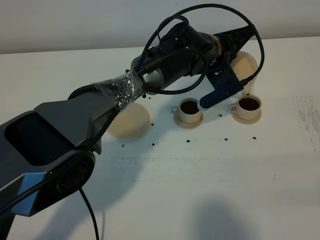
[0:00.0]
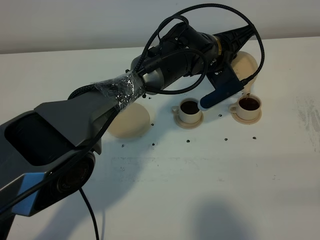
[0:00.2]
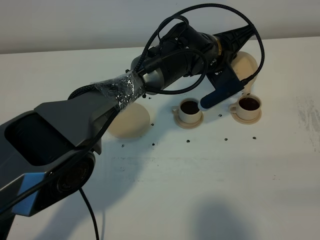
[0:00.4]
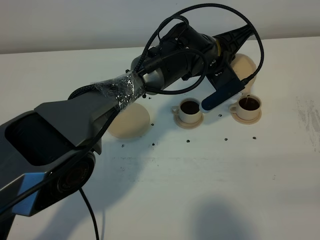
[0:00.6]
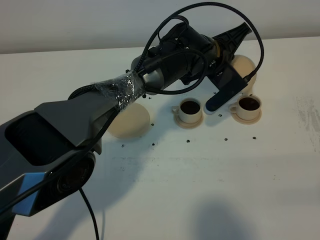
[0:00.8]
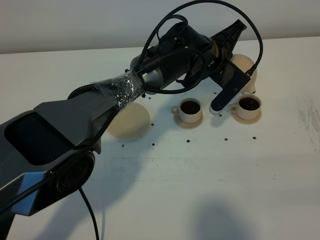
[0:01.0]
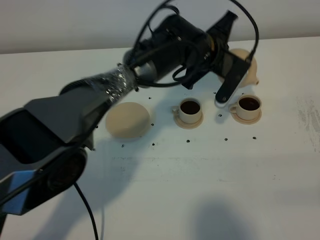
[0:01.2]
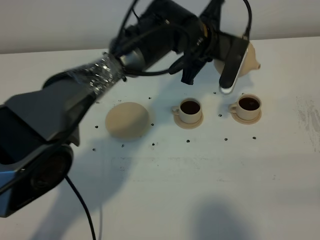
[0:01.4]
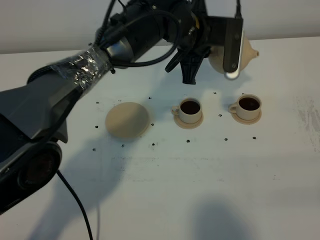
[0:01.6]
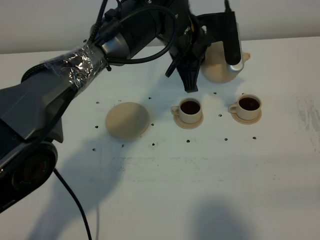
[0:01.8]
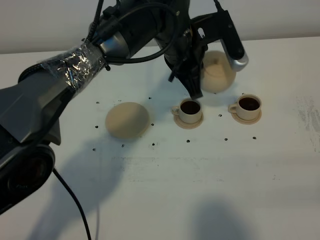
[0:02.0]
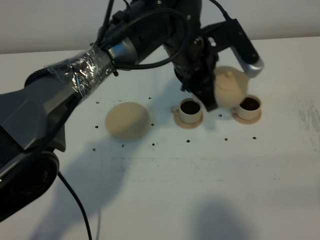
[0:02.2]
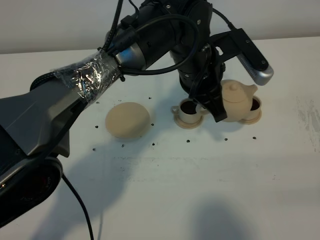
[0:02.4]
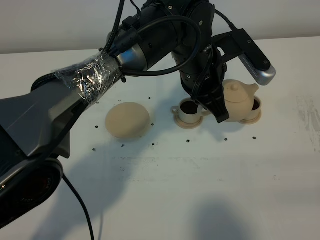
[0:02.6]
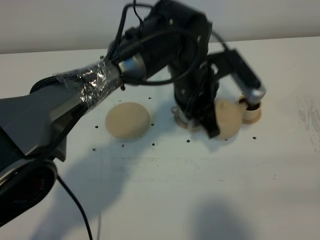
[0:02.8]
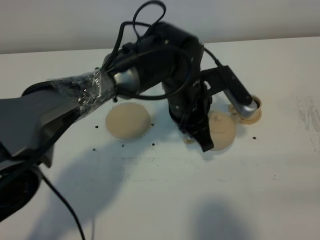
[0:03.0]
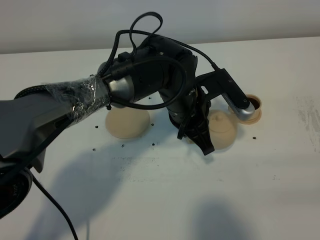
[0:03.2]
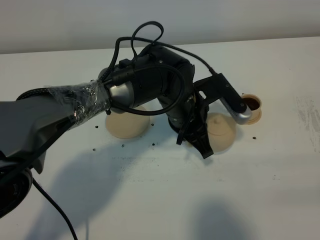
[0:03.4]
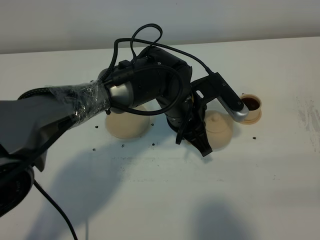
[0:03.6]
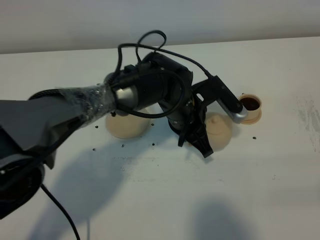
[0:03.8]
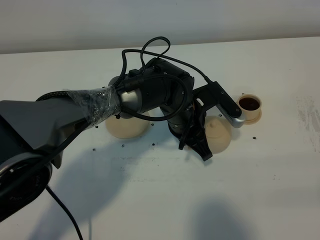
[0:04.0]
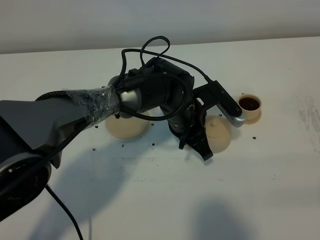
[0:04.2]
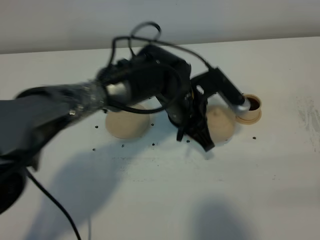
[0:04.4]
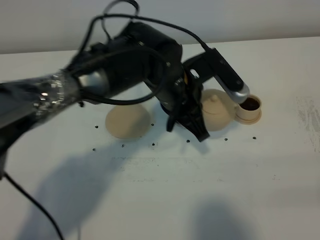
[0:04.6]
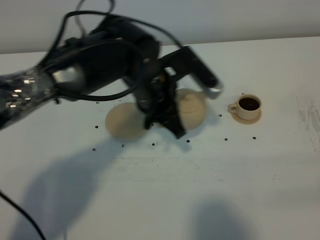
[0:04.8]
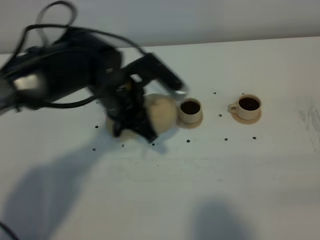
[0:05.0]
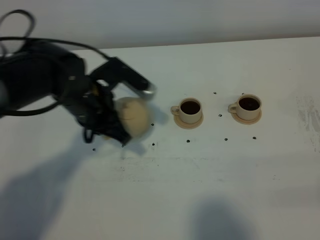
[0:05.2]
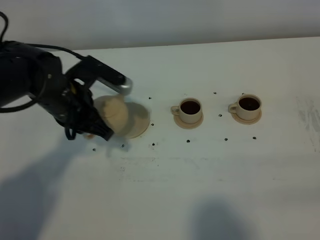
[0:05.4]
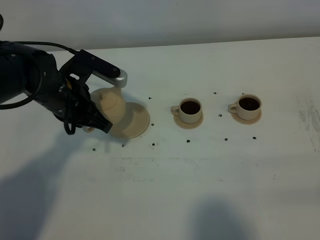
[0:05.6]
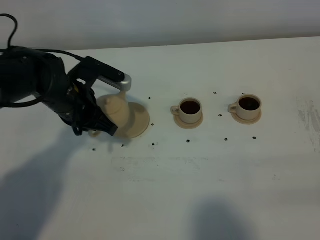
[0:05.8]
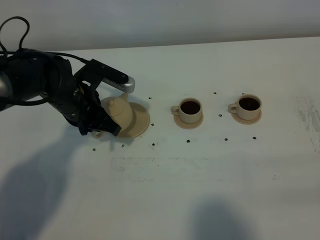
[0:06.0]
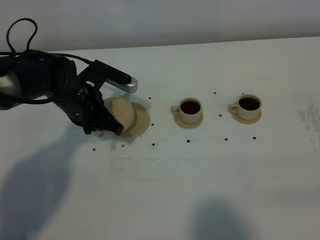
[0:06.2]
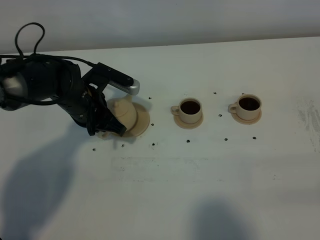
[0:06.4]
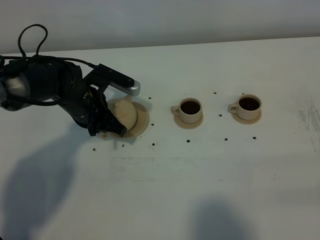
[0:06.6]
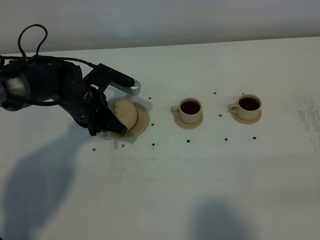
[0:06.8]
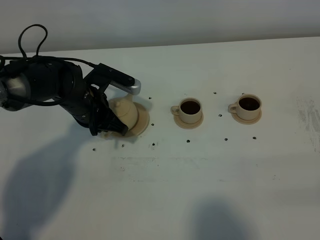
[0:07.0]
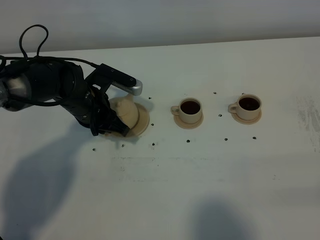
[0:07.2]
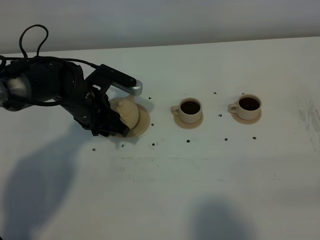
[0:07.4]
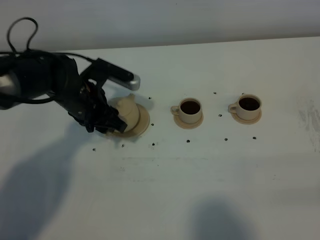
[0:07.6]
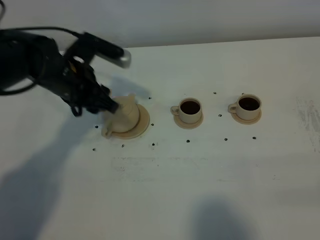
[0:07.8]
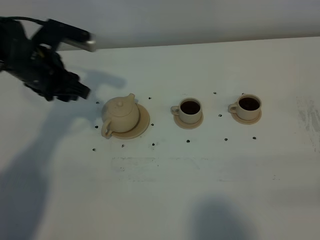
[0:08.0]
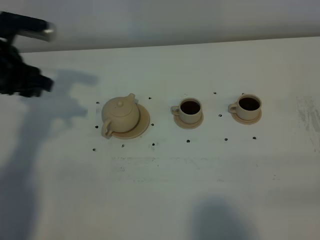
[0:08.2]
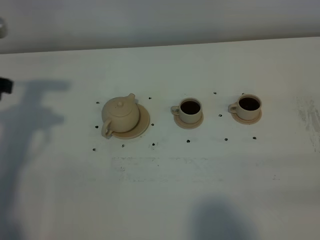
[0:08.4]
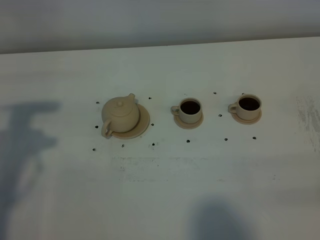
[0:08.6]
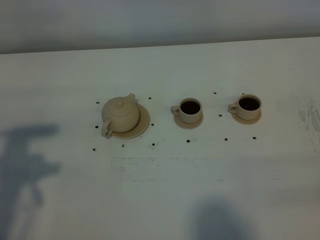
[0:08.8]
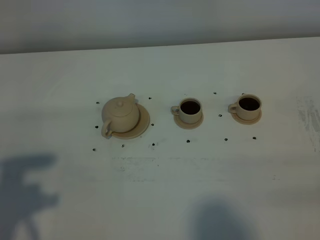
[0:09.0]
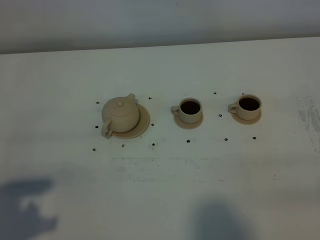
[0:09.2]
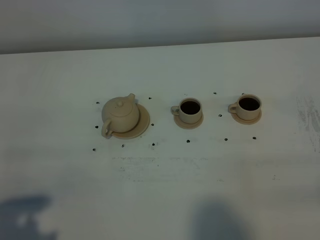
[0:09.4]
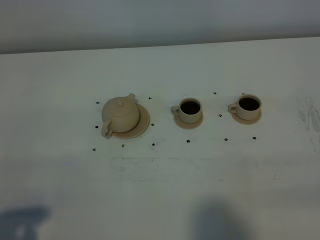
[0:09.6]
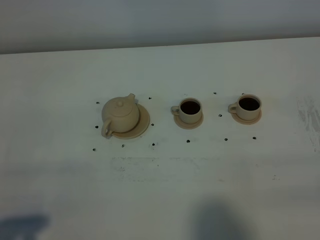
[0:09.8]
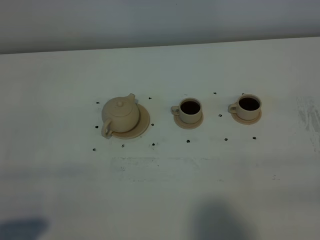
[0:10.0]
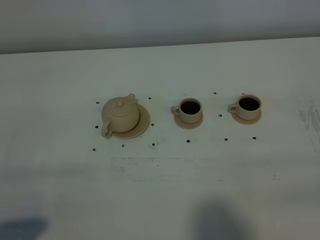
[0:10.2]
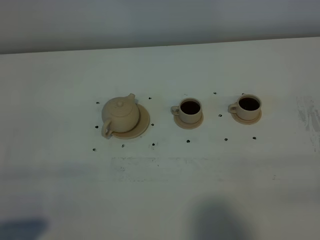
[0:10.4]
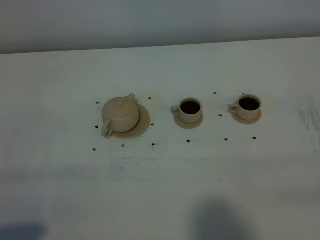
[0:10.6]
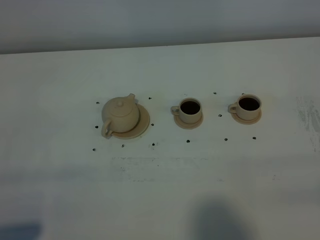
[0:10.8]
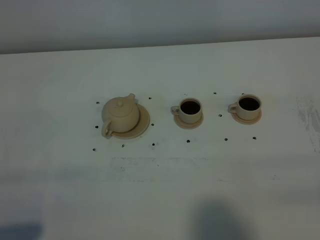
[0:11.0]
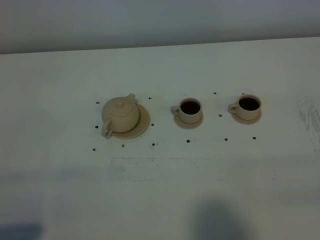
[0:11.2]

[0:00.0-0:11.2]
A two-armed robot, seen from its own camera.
Task of the whole recording: grasp the brown teapot and pour the tea into the two brown teacups one by one, put the brown teapot back in its original place.
0:00.0 to 0:01.6: The left gripper travels upward by about 5 cm.
0:01.6 to 0:03.2: The left gripper moves backward and downward, approximately 10 cm.
0:03.2 to 0:04.8: The left gripper goes approximately 5 cm to the left.
0:04.8 to 0:06.4: The left gripper moves to the left and downward, some 15 cm.
0:06.4 to 0:08.0: The left gripper travels upward and to the left by roughly 10 cm, and opens up.
0:08.0 to 0:09.6: The left gripper heads backward, covering about 35 cm.

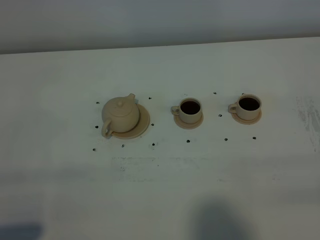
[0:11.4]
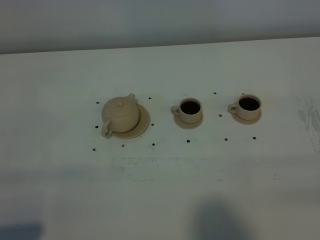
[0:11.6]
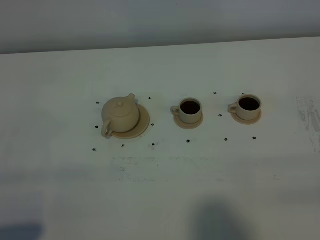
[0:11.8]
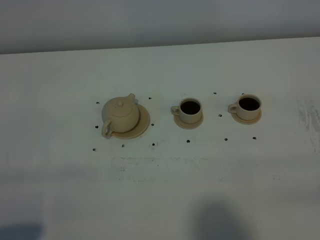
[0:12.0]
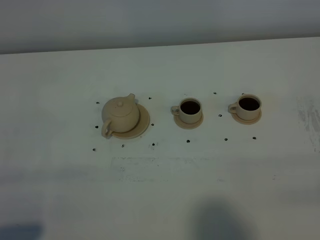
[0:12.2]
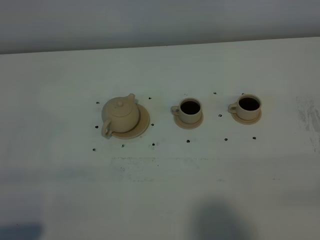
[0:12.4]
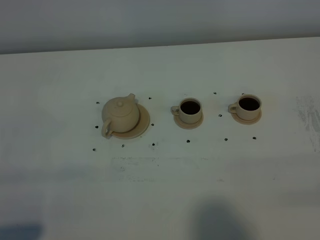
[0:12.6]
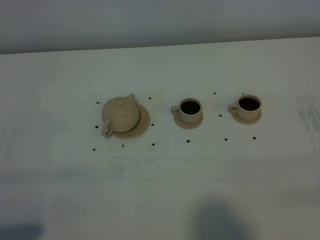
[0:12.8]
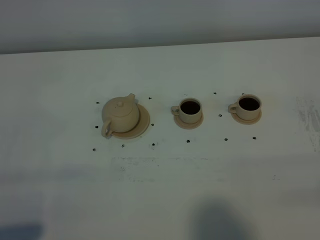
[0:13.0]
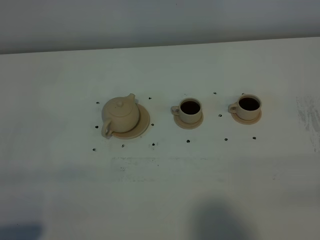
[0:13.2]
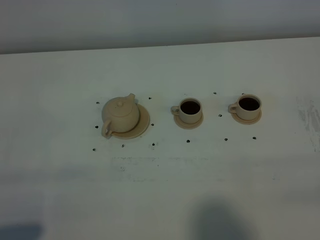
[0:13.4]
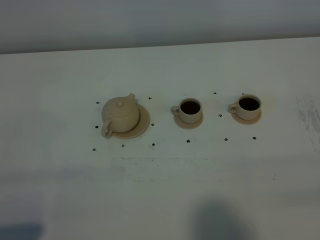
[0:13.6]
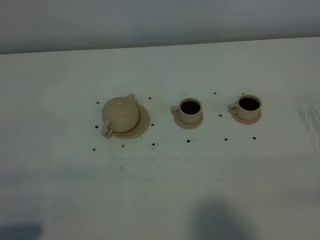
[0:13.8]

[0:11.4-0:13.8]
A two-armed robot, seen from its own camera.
Task of the whole recording: grasp the brown teapot and pour the tea into the two brown teacups one by one, put the brown teapot back in its original place.
0:12.6 to 0:13.8: Both grippers stay about where they are.
